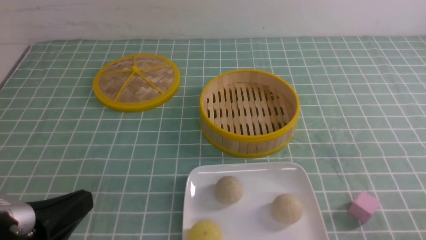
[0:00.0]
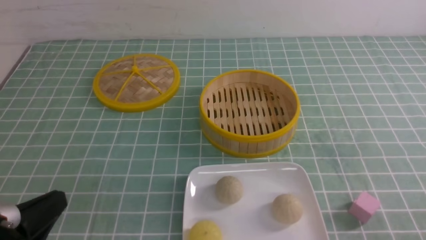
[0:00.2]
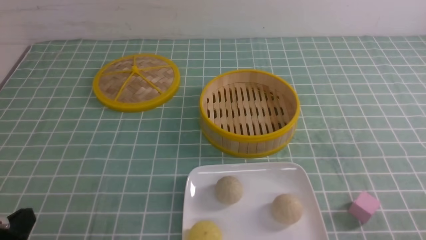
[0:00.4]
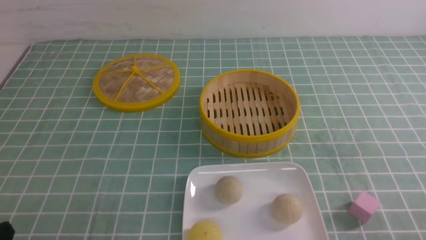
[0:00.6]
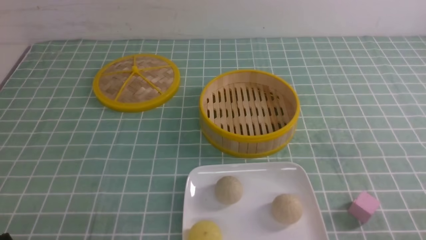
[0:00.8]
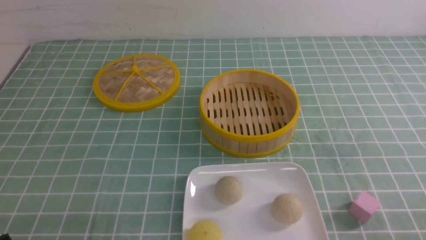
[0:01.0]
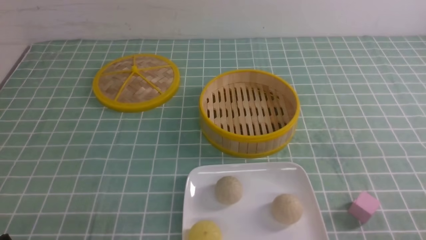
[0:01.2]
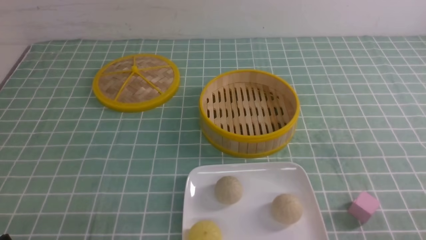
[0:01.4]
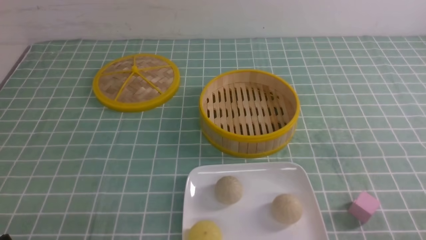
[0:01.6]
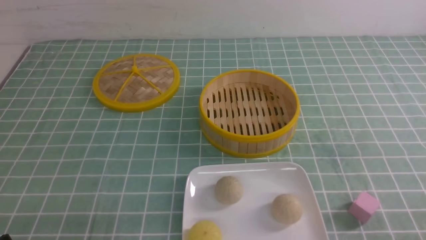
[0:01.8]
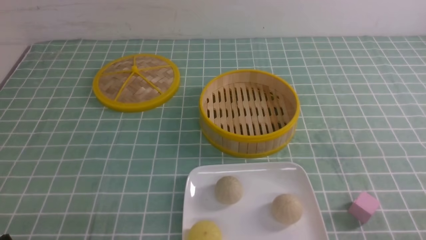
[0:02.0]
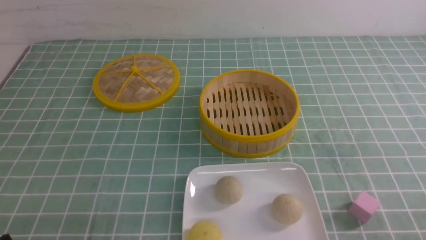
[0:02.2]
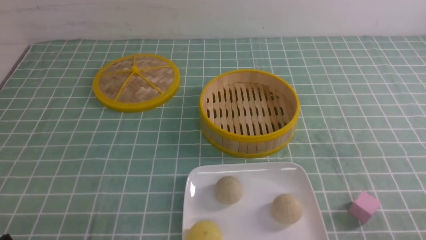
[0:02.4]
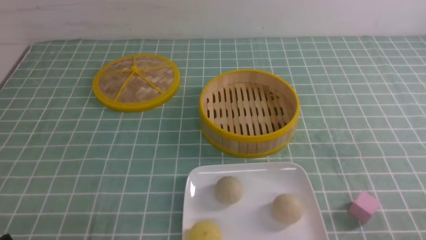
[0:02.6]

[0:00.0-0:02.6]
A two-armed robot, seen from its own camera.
0:00.0 to 0:01.2: The left gripper is displaced downward by roughly 10 cm.
0:01.2 to 0:02.6: The two grippers keep their place.

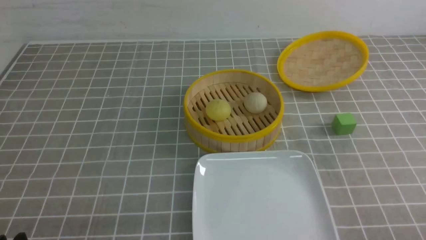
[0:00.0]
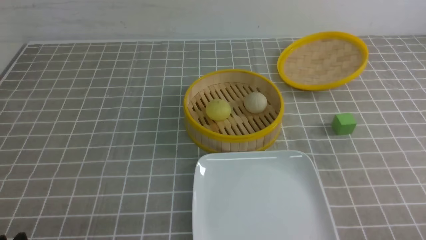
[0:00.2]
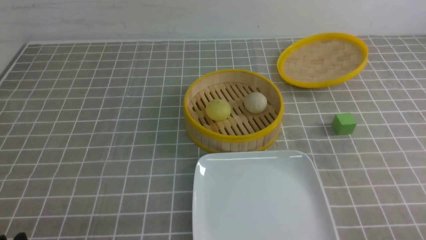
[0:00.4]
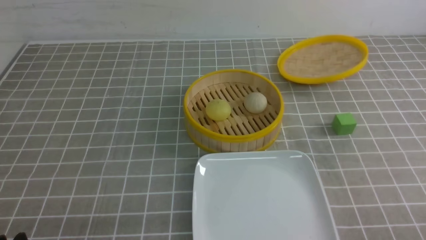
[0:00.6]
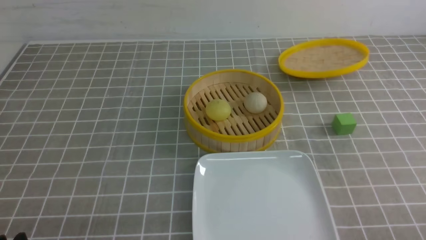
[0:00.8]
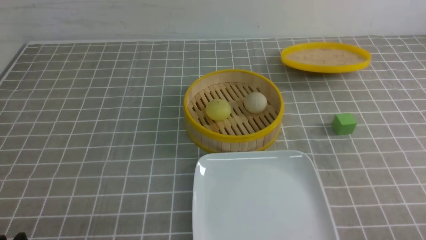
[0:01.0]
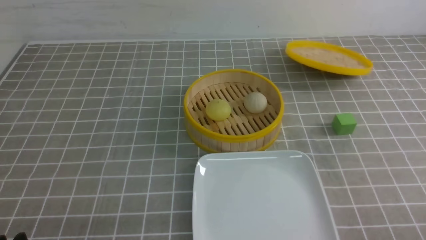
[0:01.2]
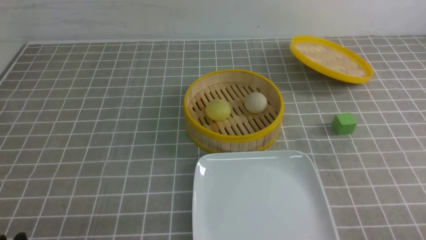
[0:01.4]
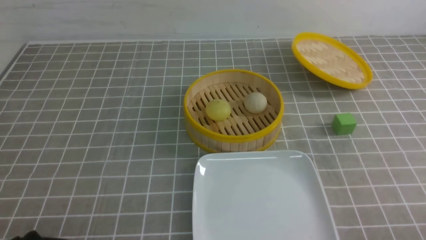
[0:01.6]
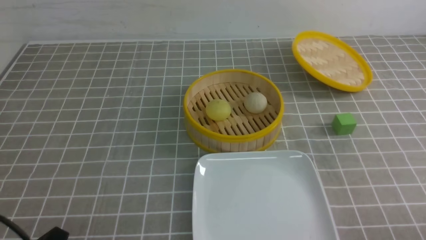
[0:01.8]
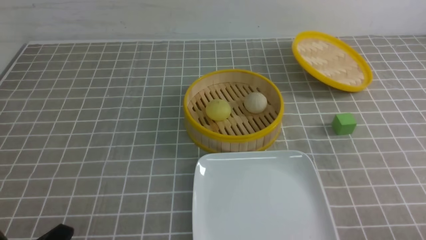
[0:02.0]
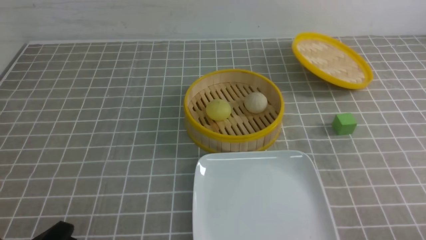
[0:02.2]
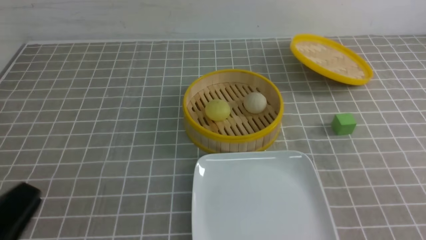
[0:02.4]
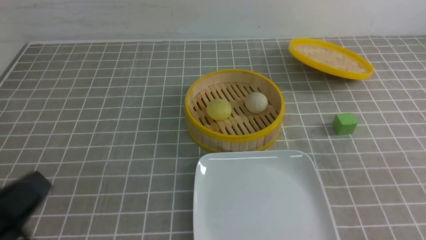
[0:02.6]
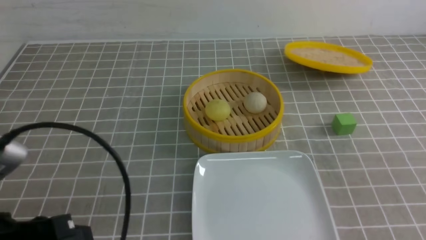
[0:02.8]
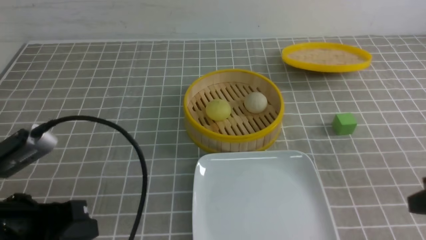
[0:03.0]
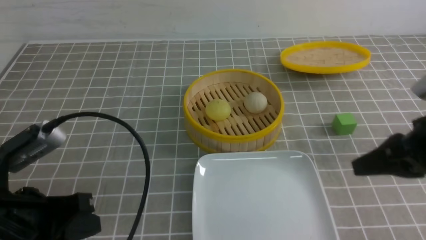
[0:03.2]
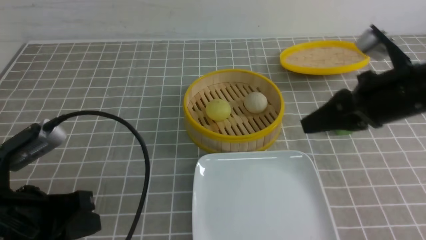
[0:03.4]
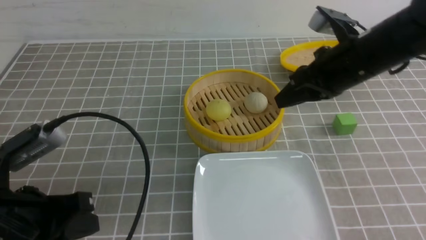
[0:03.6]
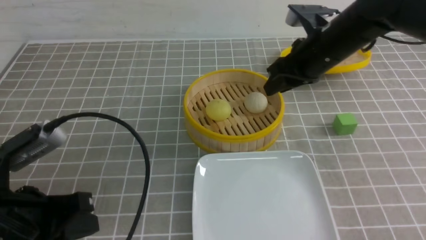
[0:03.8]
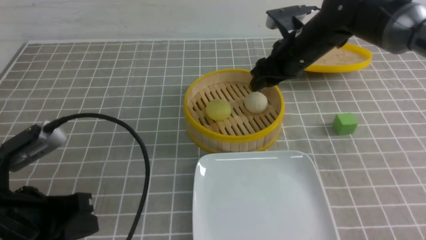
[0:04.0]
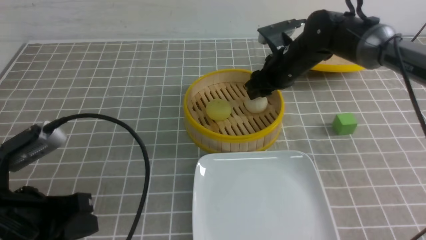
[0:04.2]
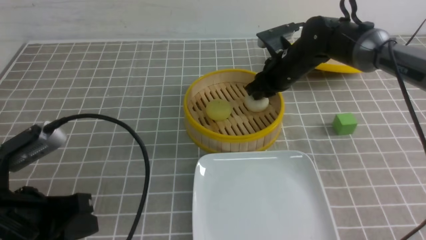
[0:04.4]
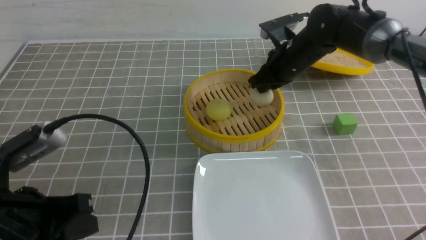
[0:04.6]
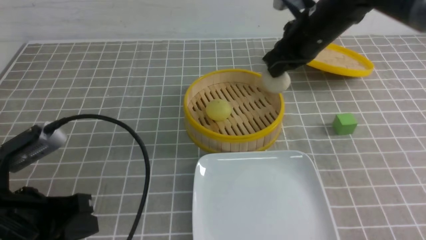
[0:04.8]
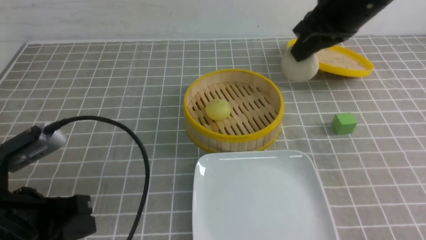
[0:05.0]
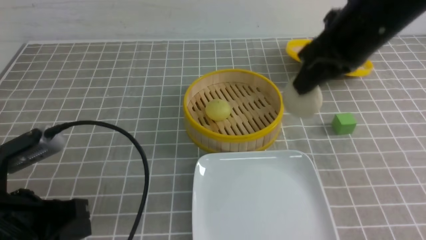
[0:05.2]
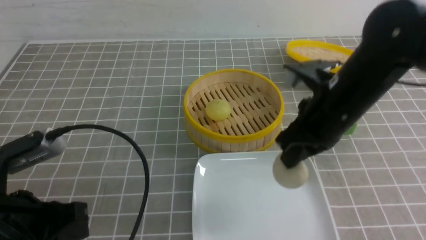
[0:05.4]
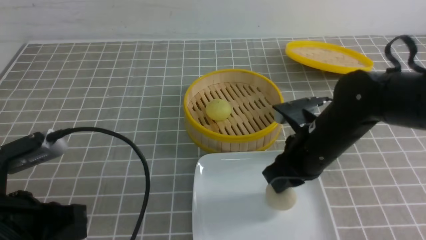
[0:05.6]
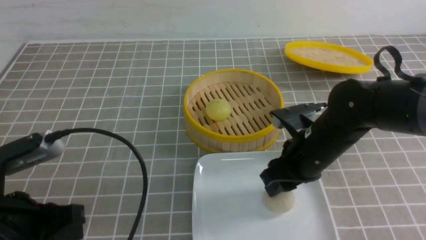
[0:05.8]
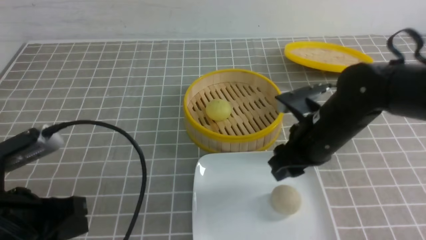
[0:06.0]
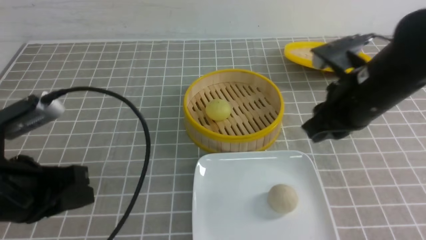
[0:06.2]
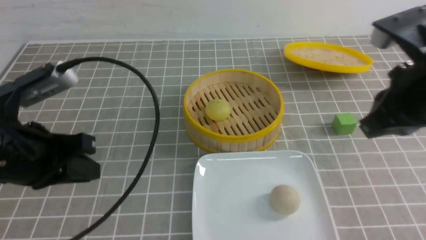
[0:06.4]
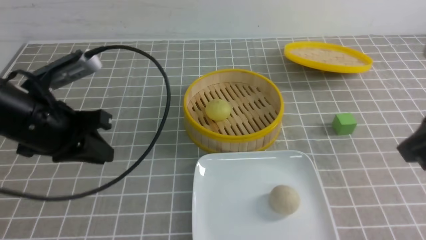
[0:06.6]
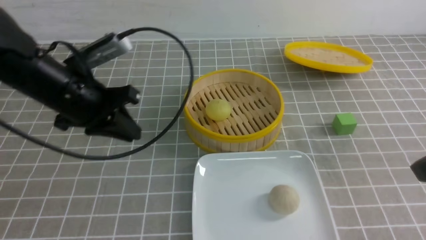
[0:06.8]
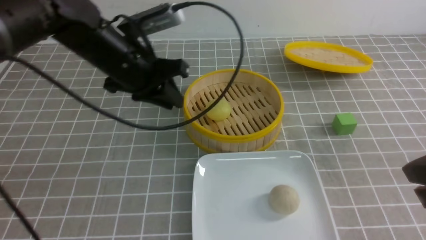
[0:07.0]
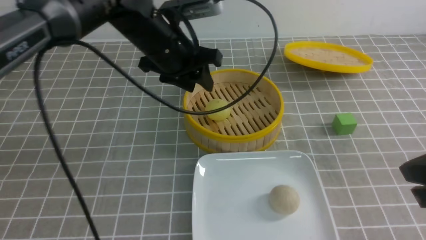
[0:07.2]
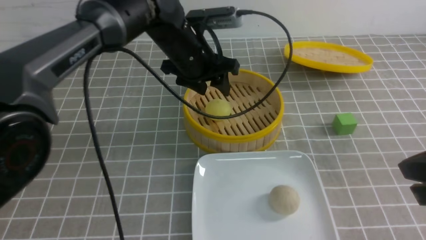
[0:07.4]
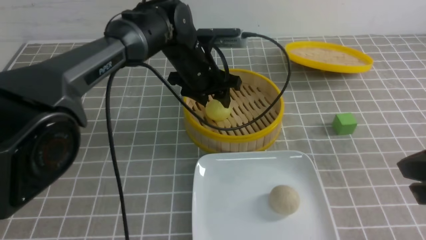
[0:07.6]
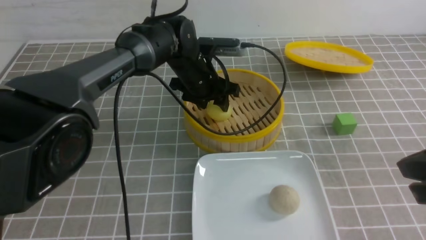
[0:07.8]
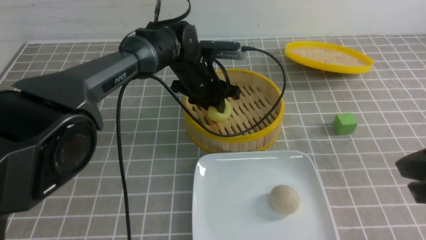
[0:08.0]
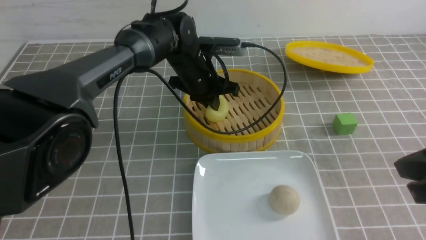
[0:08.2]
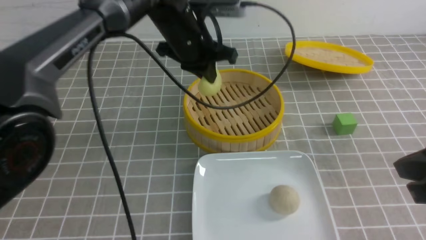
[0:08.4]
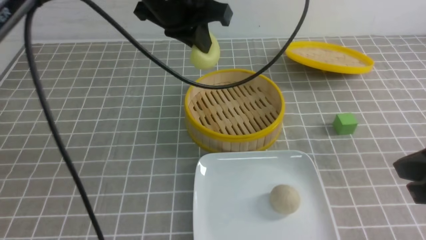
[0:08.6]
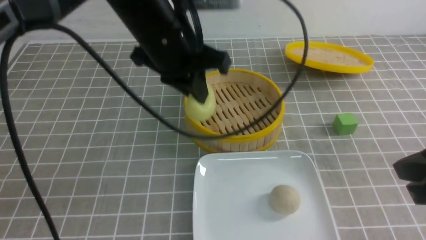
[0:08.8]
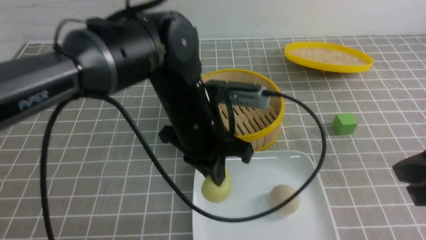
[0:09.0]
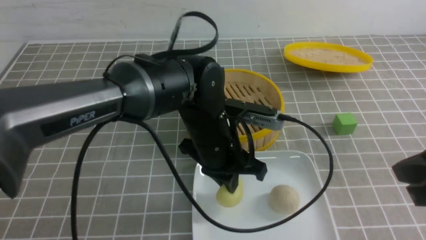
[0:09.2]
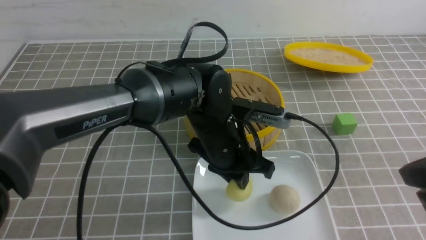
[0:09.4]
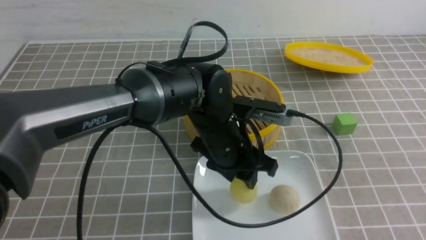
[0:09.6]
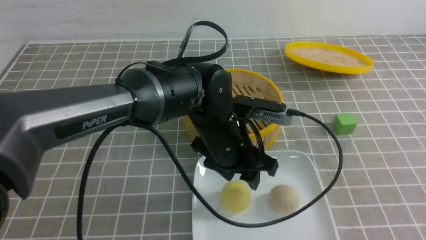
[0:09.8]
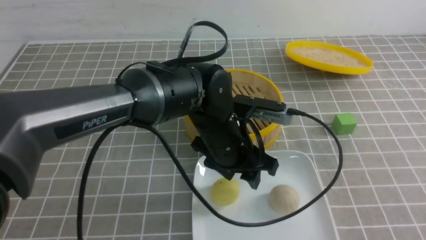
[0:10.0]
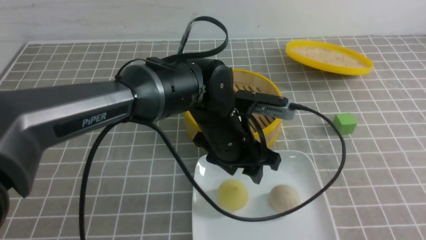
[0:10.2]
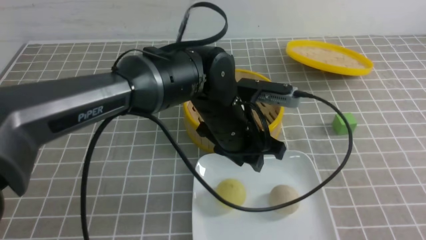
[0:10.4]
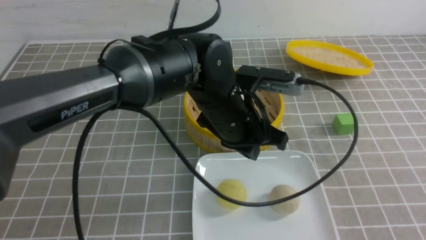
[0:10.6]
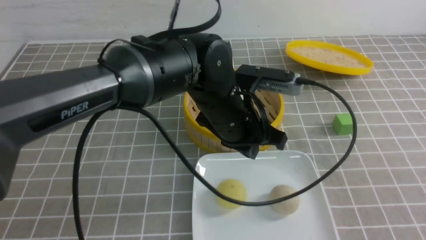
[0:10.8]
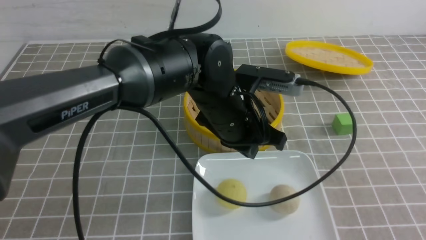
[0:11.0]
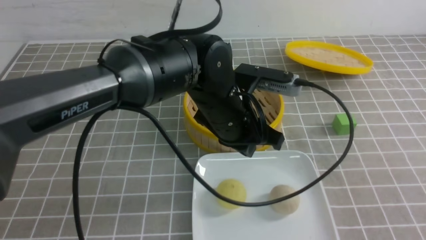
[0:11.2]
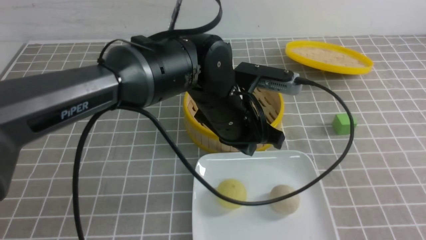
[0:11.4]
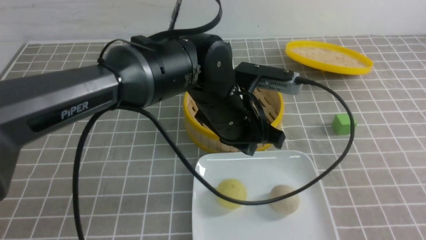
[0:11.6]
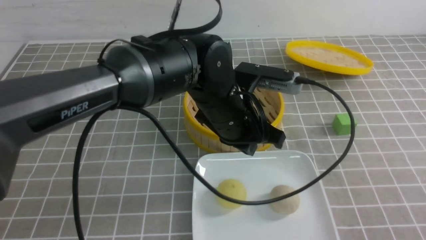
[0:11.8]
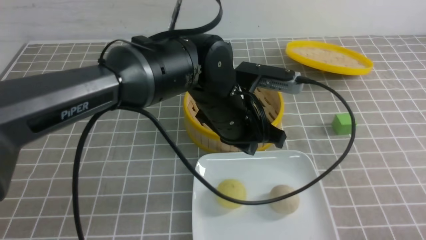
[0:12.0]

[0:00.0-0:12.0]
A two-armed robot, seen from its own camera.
Step, 0:00.0 to 0:04.4: use the right arm to grab the steamed stuffed bun that is closest to it.
Step, 0:04.6 to 0:05.8: use the right arm to put the steamed stuffed bun into the plate.
Step, 0:06.0 to 0:08.2: use the left arm to grab the steamed stuffed bun that is closest to it.
Step, 0:08.4 to 0:09.6: use the left arm to put the steamed stuffed bun into the plate.
0:01.6 to 0:03.0: The grippers both shift upward and forward by some 15 cm. The right gripper closes up; the left gripper closes up.
0:03.0 to 0:04.4: The right gripper travels forward and to the left by approximately 35 cm, and opens.
0:04.4 to 0:06.0: The right gripper heads backward, covering approximately 15 cm, and opens its fingers.
0:06.0 to 0:07.6: The left gripper goes some 35 cm forward and to the right, and opens; the right gripper goes roughly 20 cm backward, to the right and upward, and closes its fingers.
0:07.6 to 0:09.0: The left gripper shifts roughly 15 cm backward, travels upward and back again, about 15 cm each way, and closes its fingers.
0:09.0 to 0:10.4: The left gripper moves some 5 cm, and opens up. Meanwhile the right gripper travels backward and to the right by about 15 cm.
0:10.4 to 0:12.0: The left gripper closes its fingers; the right gripper moves downward, some 10 cm.

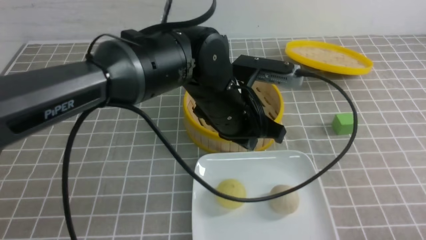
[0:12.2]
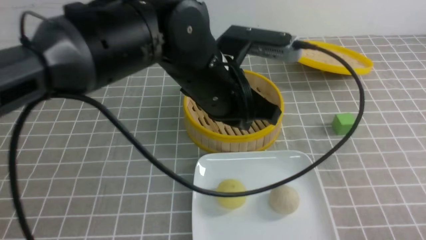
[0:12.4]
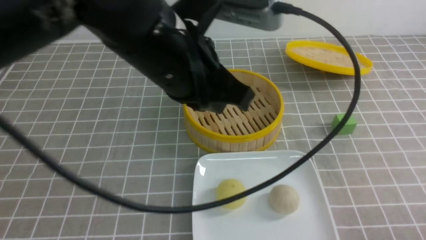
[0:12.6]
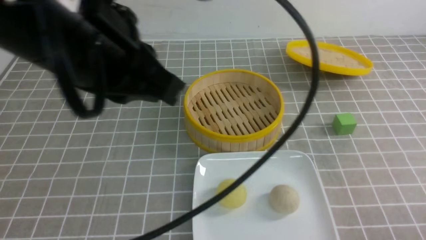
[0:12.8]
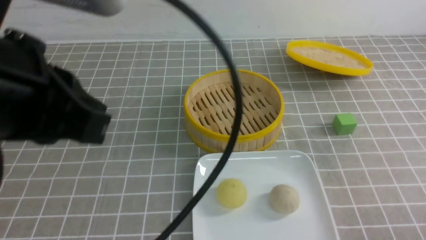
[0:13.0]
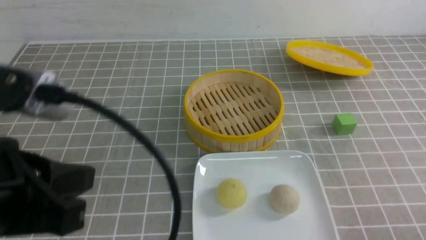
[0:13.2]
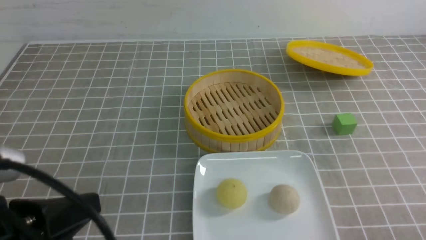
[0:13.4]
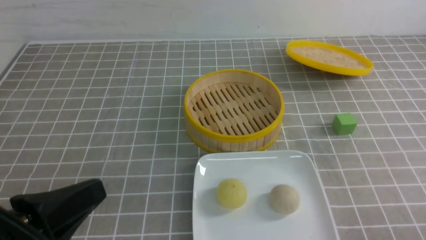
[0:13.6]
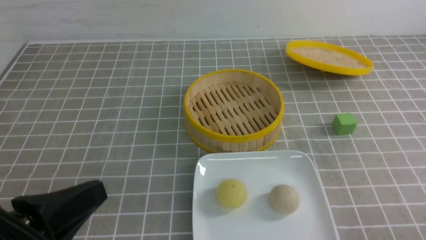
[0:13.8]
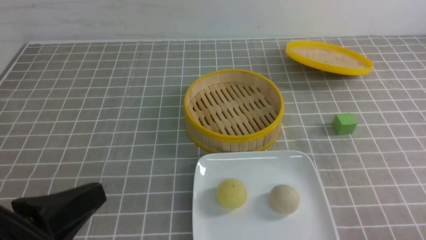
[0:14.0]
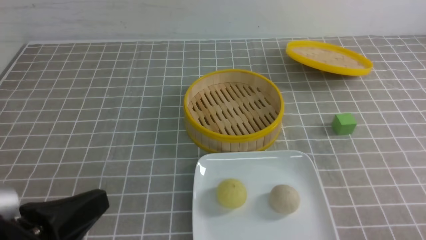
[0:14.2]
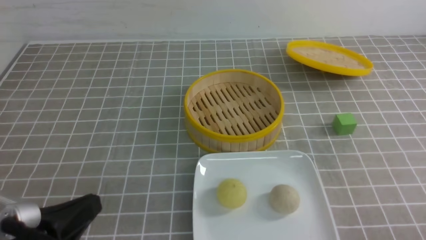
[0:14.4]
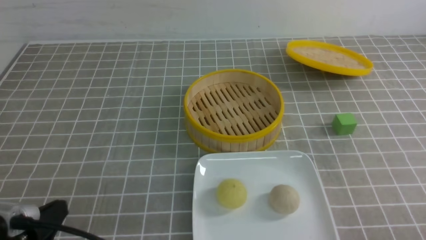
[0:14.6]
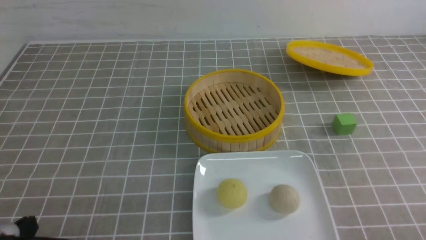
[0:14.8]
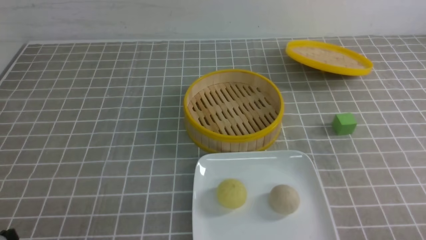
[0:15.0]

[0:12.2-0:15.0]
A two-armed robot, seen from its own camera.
0:12.2 to 0:13.6: The left gripper heads backward and to the left, covering roughly 30 cm.
0:13.6 to 0:15.0: The left gripper goes about 15 cm downward and to the left.
